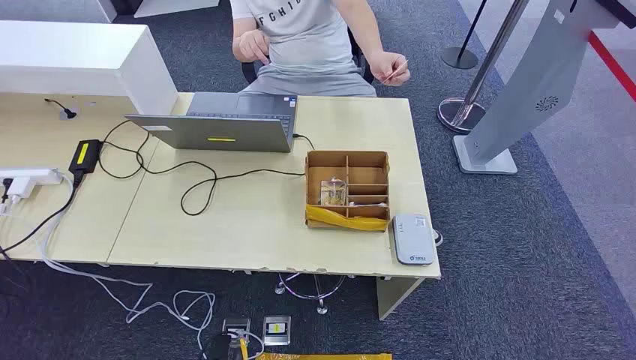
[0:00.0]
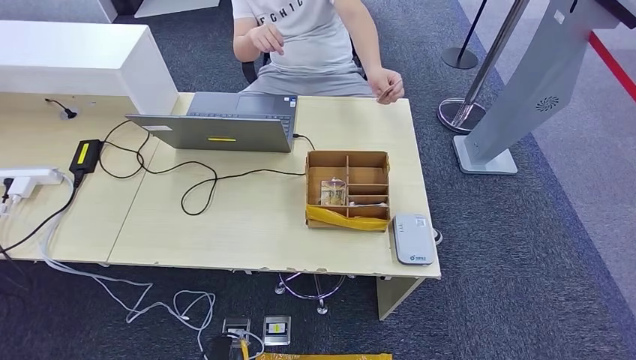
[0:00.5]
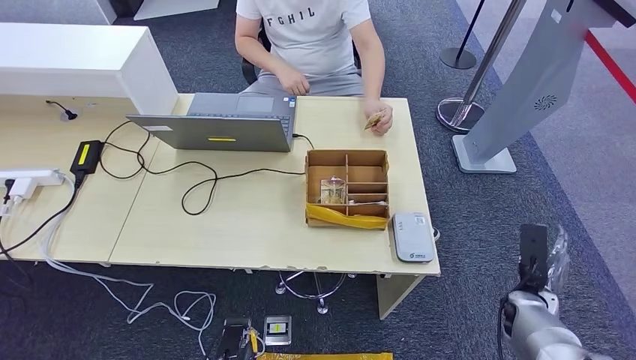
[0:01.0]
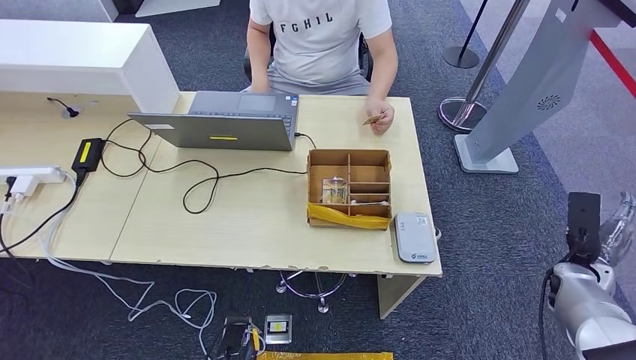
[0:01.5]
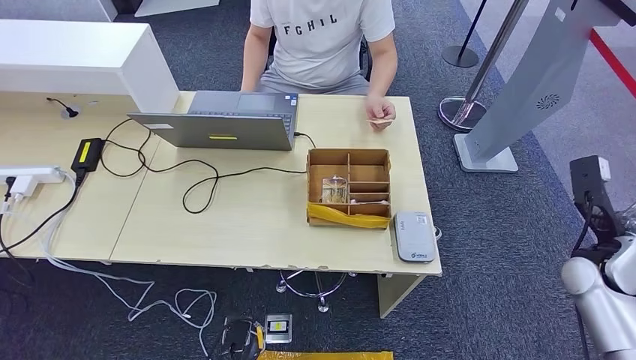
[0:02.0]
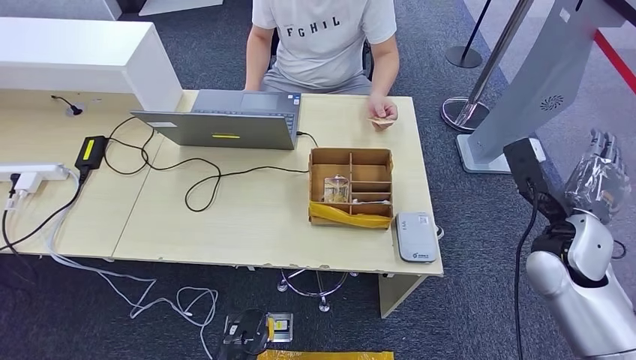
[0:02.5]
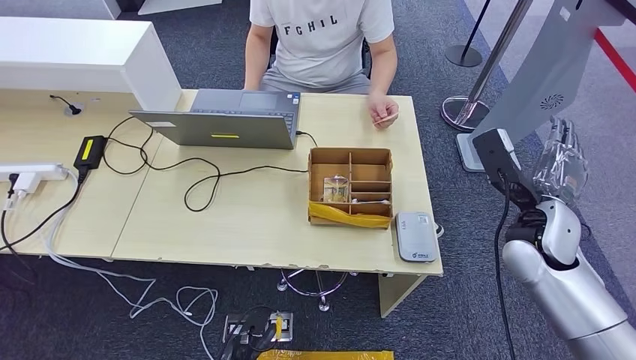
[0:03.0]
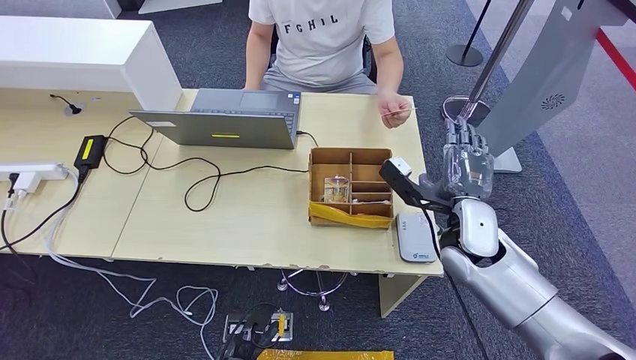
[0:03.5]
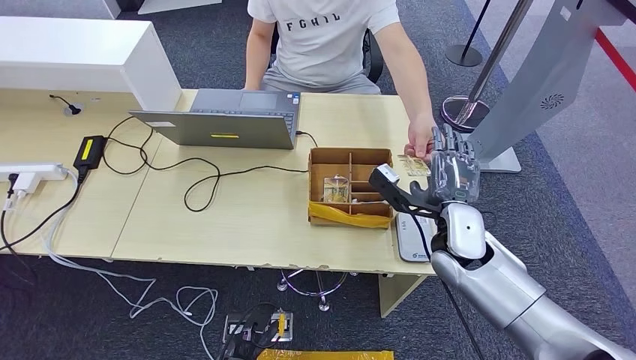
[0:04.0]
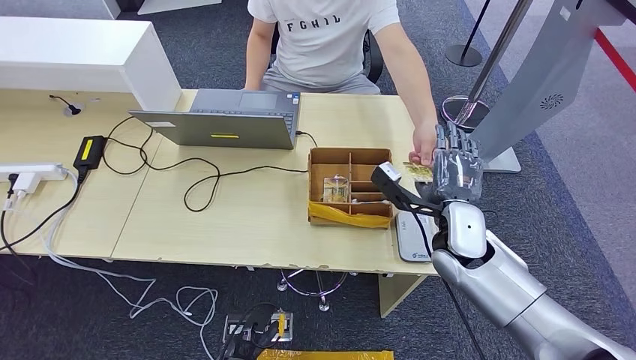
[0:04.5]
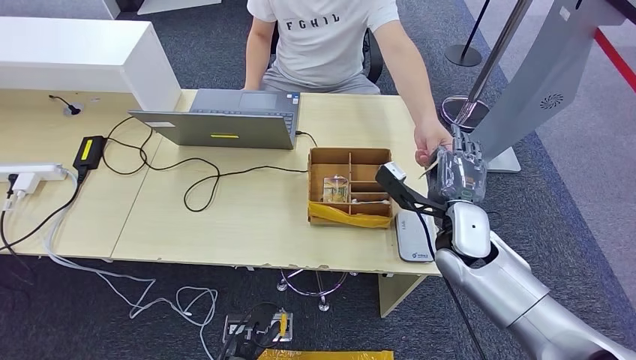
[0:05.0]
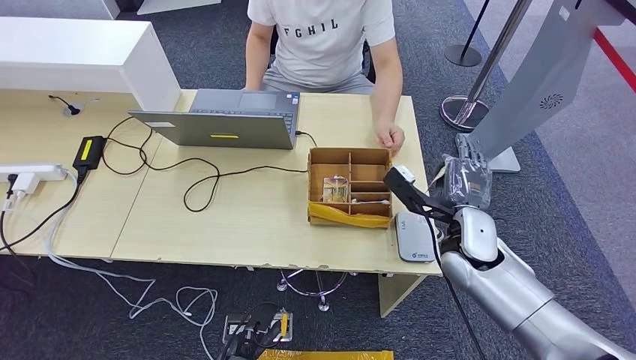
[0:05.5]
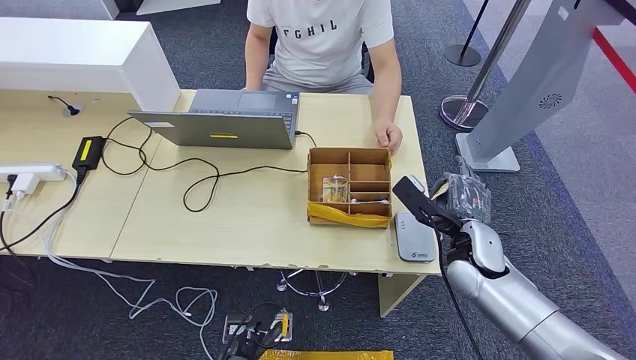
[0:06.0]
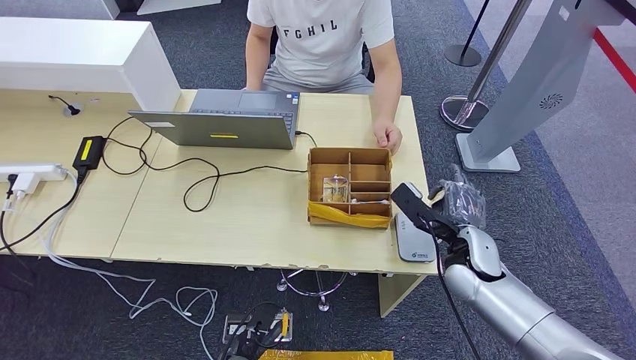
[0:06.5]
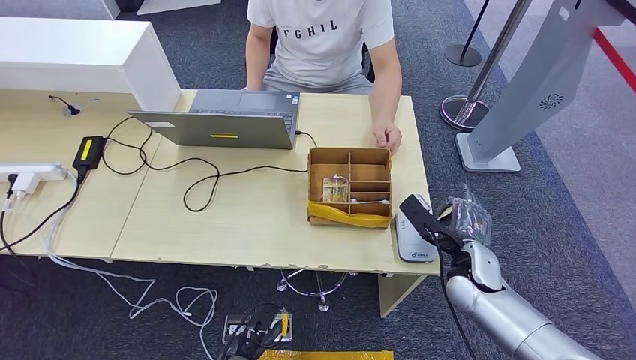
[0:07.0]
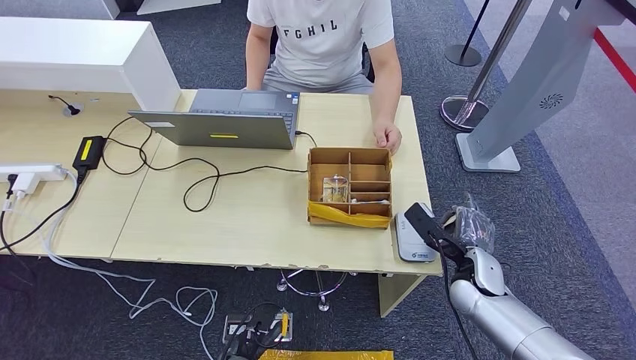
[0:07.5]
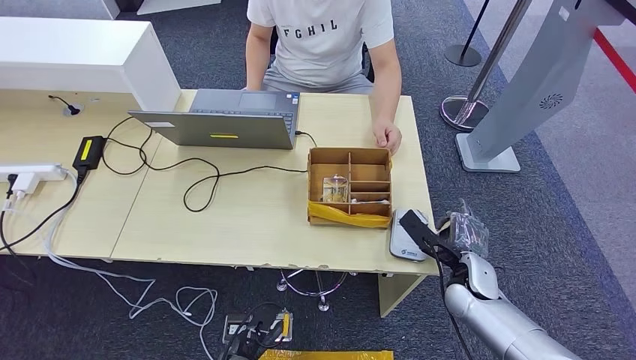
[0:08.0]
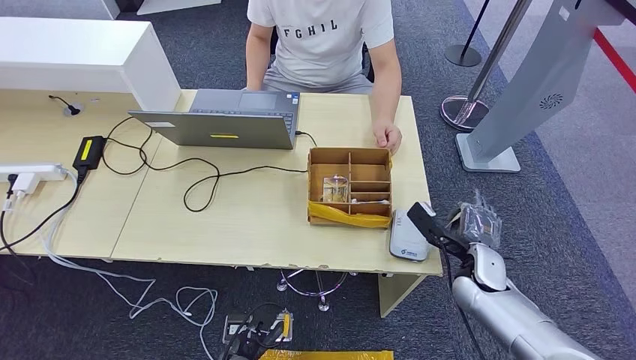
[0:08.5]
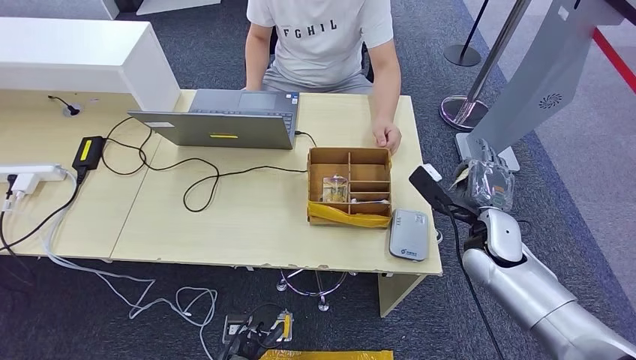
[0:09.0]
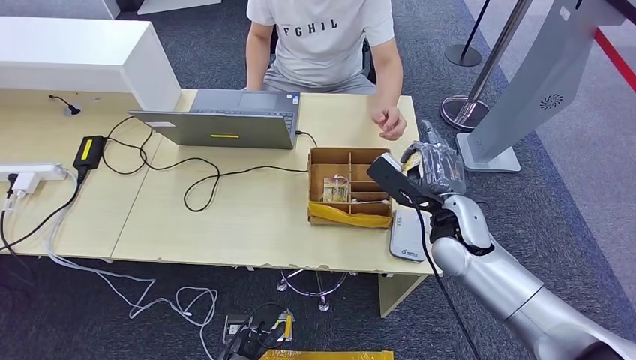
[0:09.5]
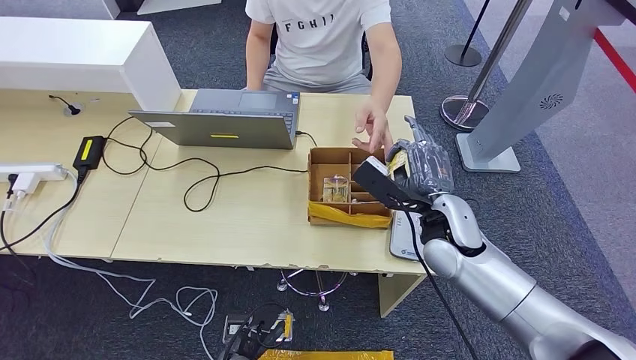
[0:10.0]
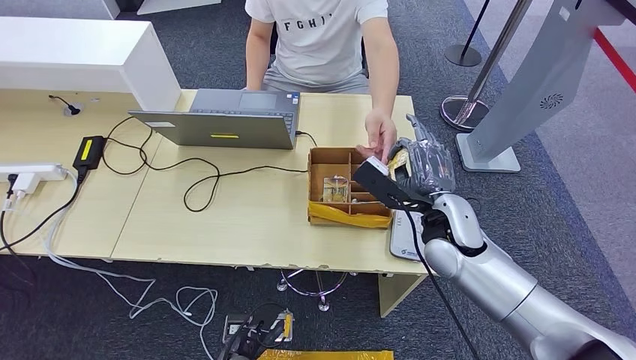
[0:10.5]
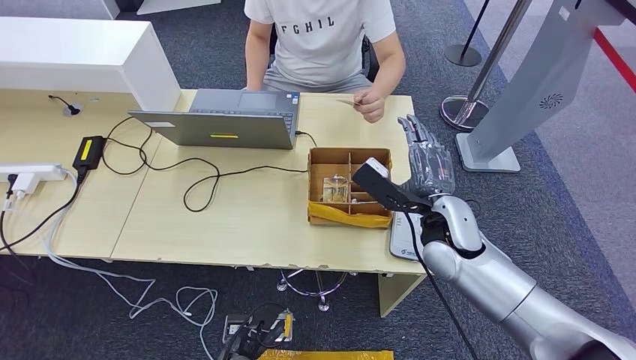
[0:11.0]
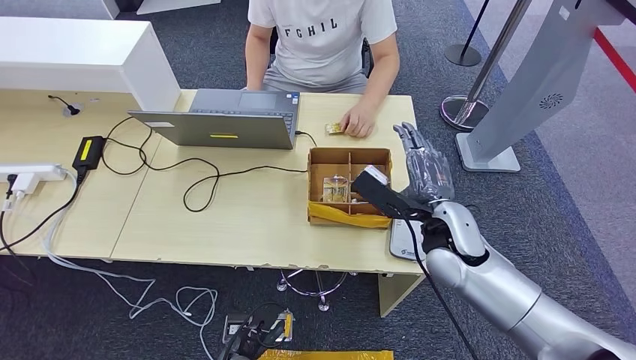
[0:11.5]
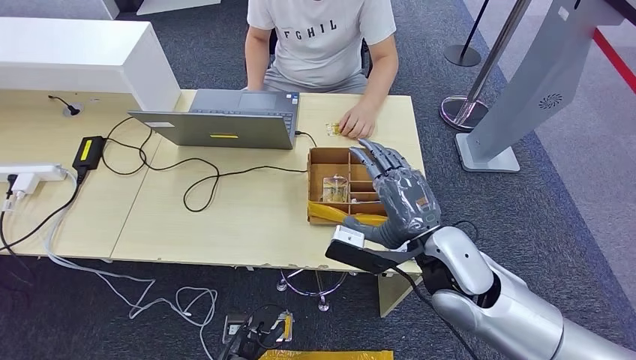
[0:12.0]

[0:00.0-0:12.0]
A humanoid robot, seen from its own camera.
Step, 0:00.0 to 0:05.0: Take the ID card from the person's hand.
Step, 0:06.0 to 0:07.0: Take the ID card from the person's hand.
Step, 0:08.5 to 0:12.0: Hand the ID card to the person.
0:04.0 to 0:06.0: The right hand moves approximately 5 cm.
0:06.0 to 0:08.0: The right hand moves downward, some 10 cm.
0:08.0 to 0:10.0: The right hand travels upward and to the left by roughly 15 cm.
0:10.0 to 0:12.0: The right hand heads backward, covering approximately 5 cm.

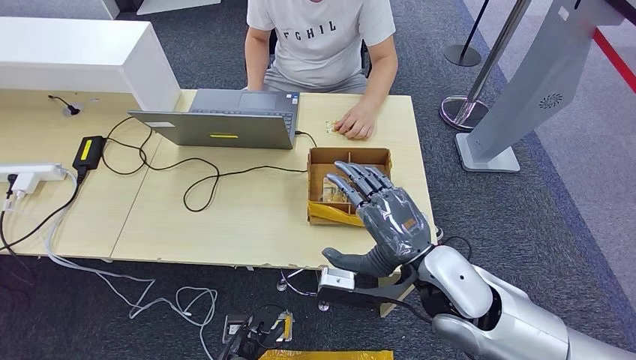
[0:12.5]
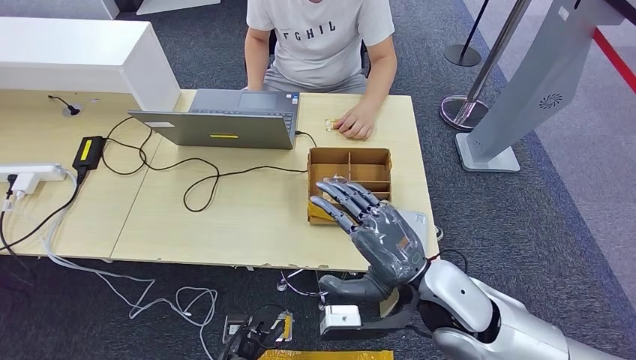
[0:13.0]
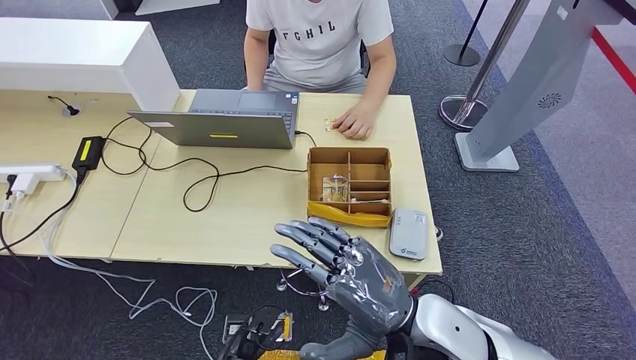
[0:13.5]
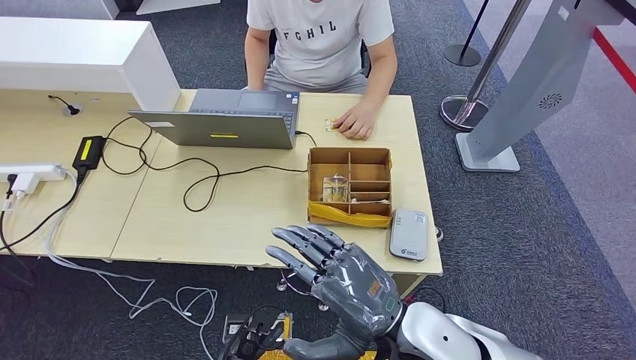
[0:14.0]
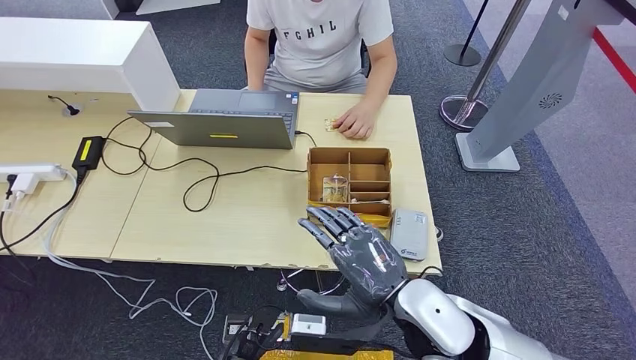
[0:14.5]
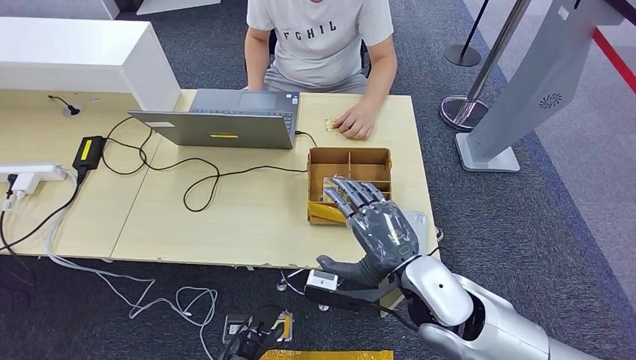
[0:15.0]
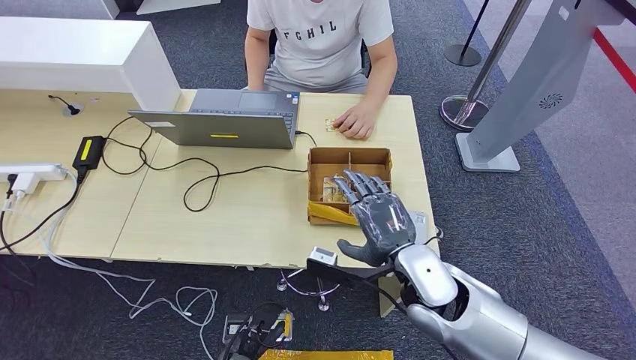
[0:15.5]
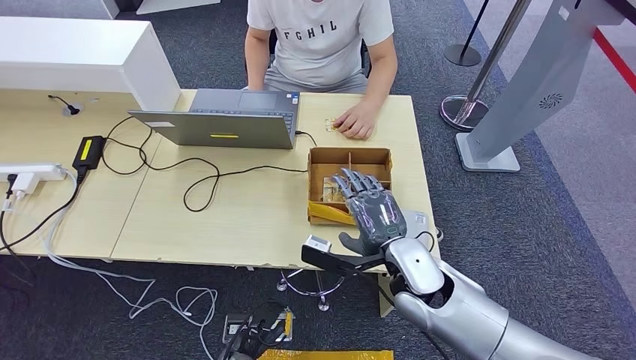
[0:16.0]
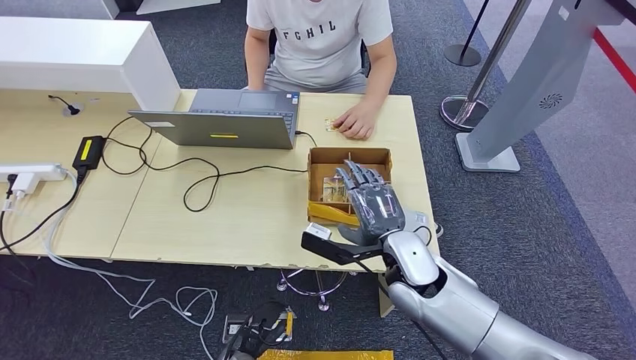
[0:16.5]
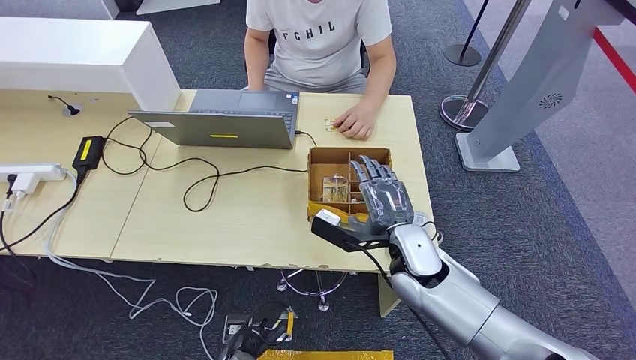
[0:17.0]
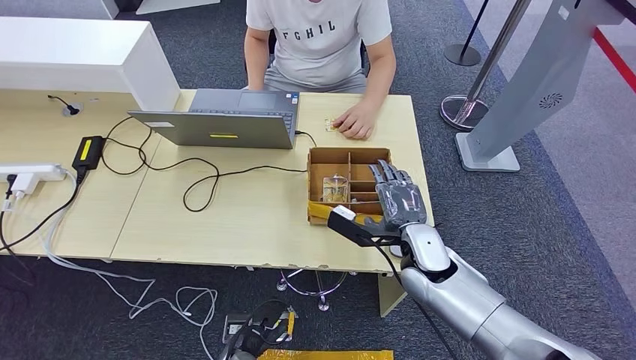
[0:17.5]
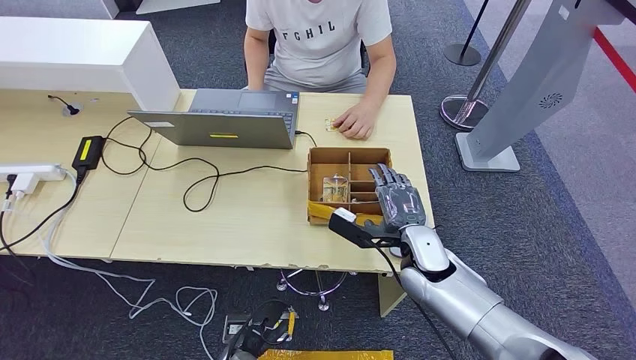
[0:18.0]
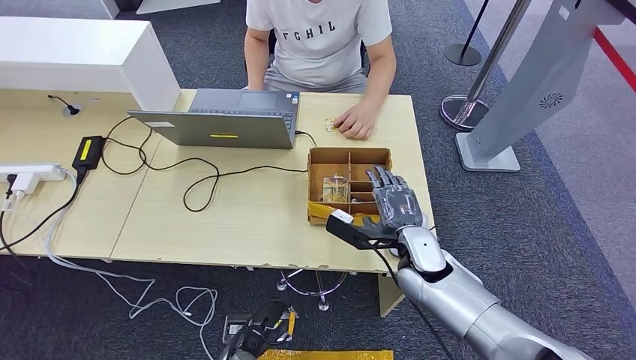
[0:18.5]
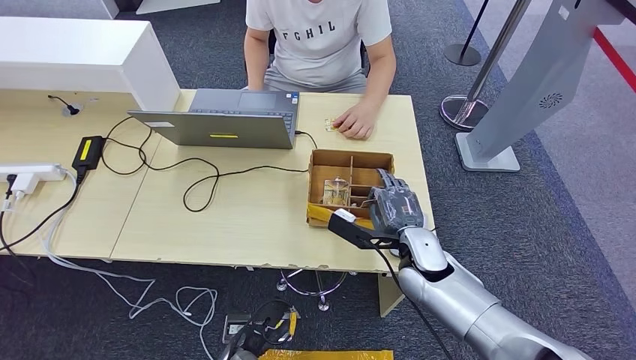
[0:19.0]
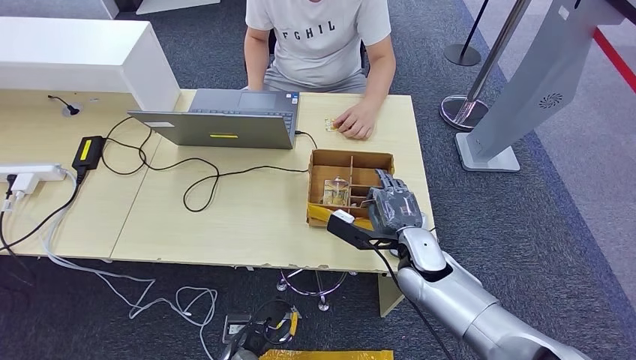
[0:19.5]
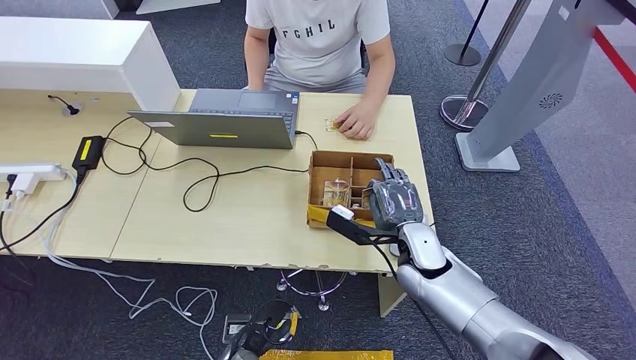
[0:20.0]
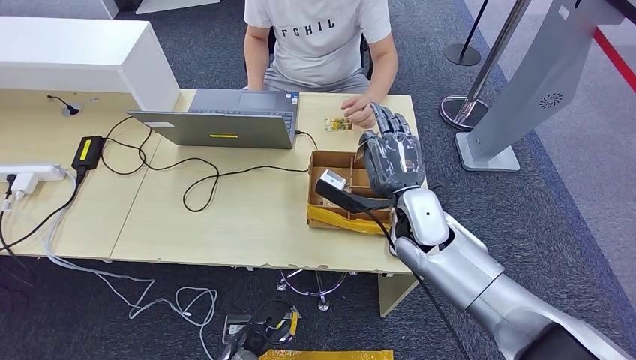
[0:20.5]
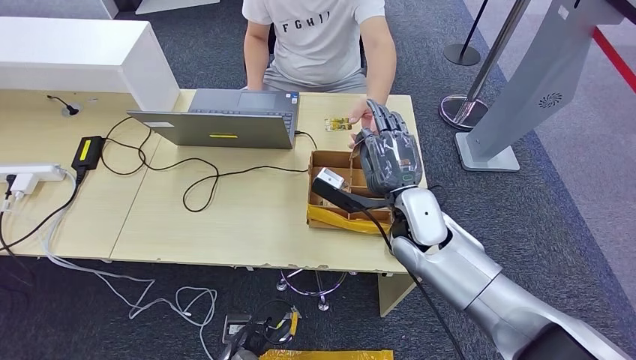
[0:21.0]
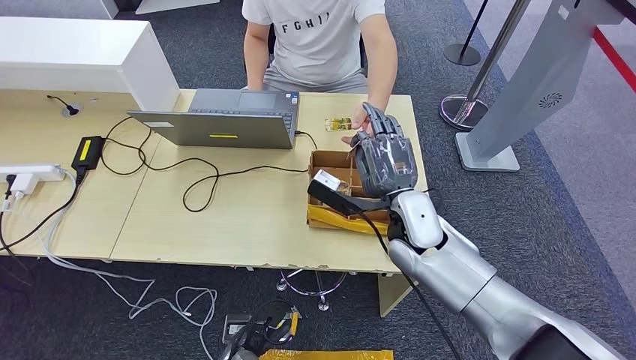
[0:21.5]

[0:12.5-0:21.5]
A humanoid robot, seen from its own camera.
Step, 0:15.0 to 0:20.5: Pick up the room key from the key card box.
0:14.5 to 0:17.0: The right hand goes roughly 15 cm forward and downward.
0:17.0 to 0:19.5: There are only small adjustments of the hands.
0:19.5 to 0:21.5: The right hand shifts some 10 cm upward.
